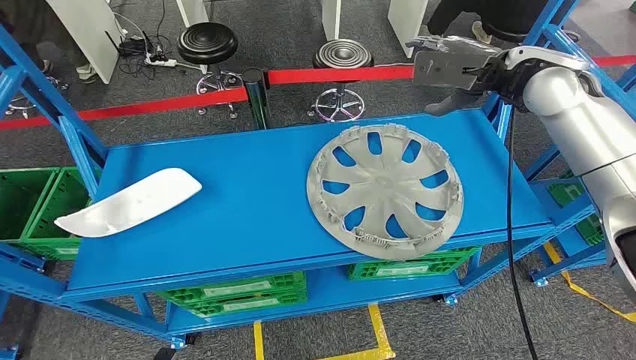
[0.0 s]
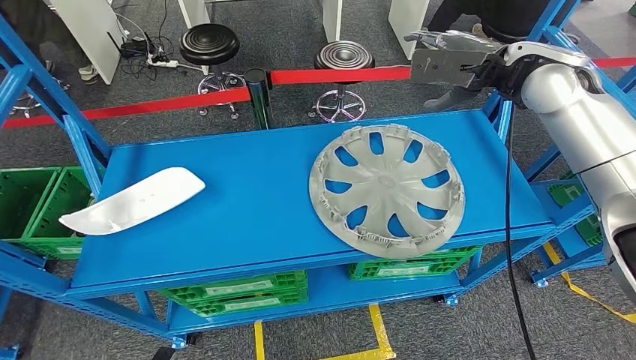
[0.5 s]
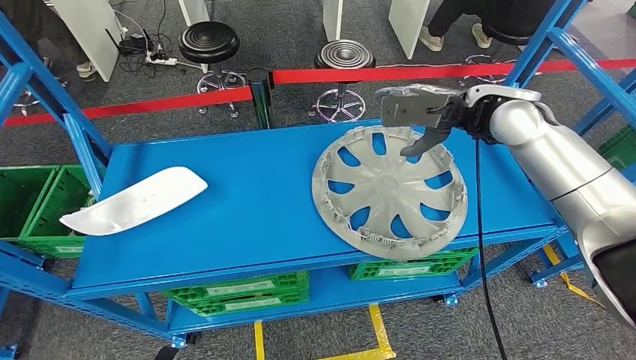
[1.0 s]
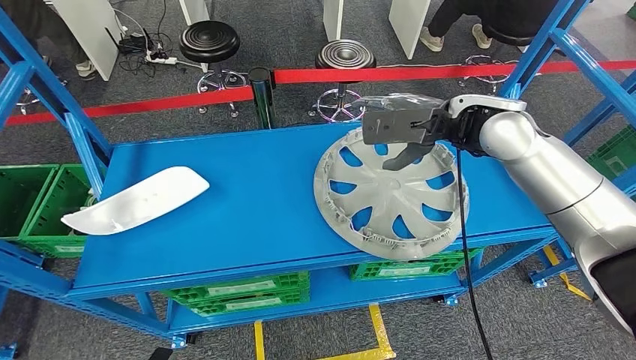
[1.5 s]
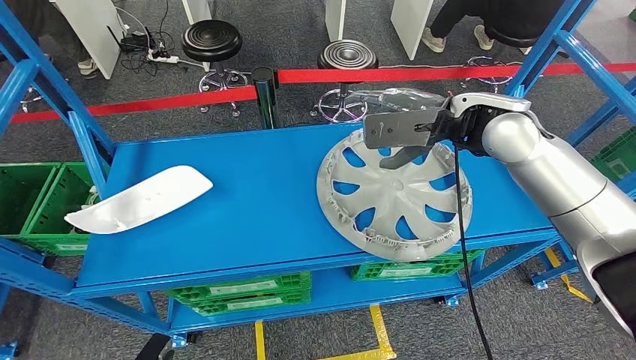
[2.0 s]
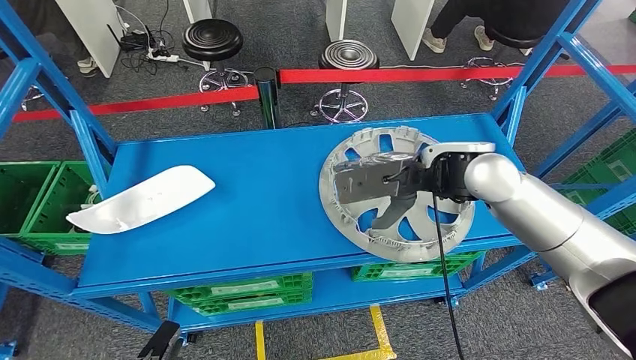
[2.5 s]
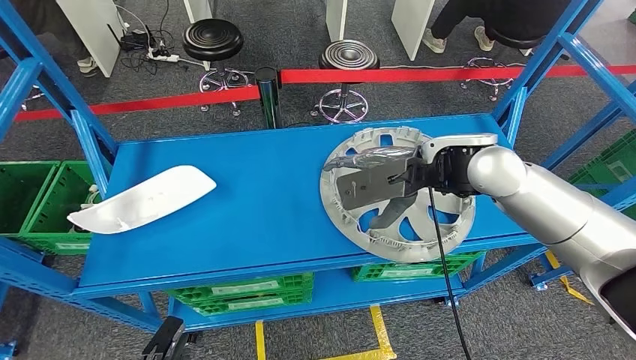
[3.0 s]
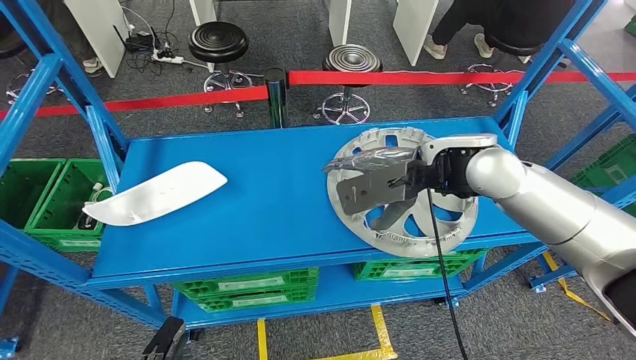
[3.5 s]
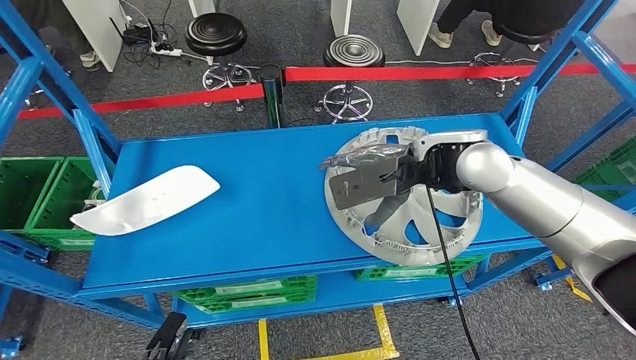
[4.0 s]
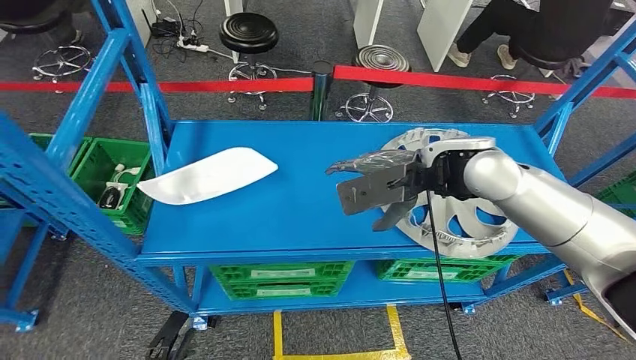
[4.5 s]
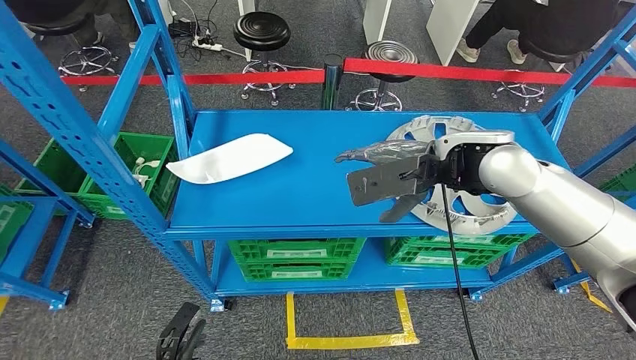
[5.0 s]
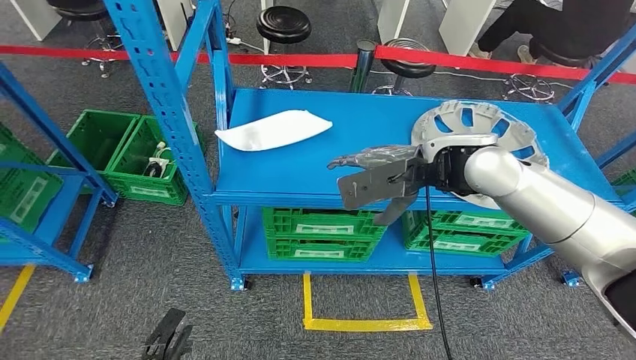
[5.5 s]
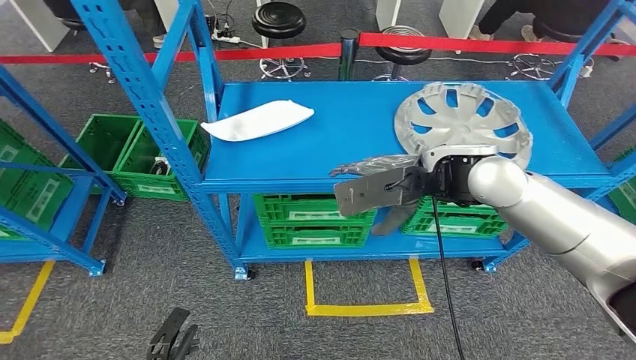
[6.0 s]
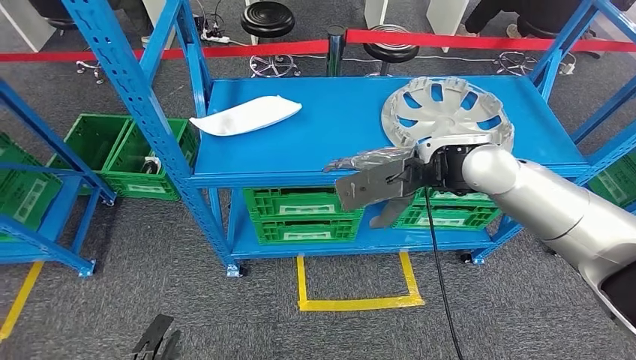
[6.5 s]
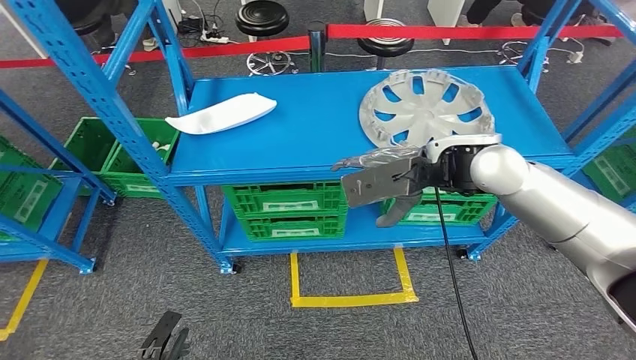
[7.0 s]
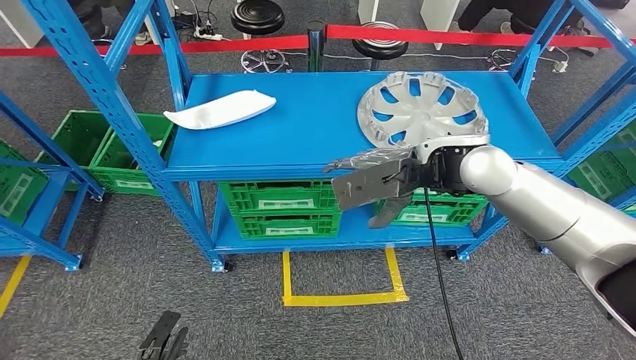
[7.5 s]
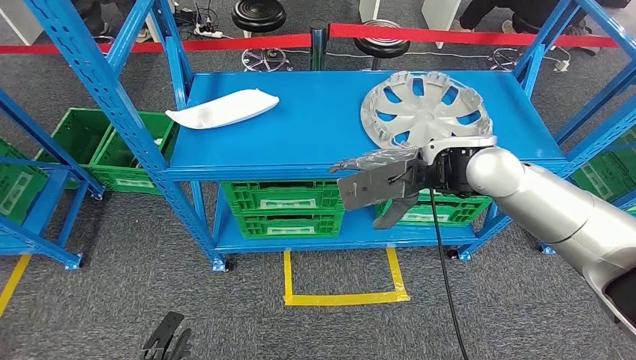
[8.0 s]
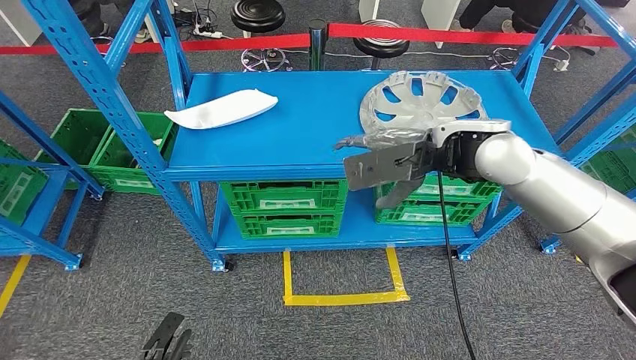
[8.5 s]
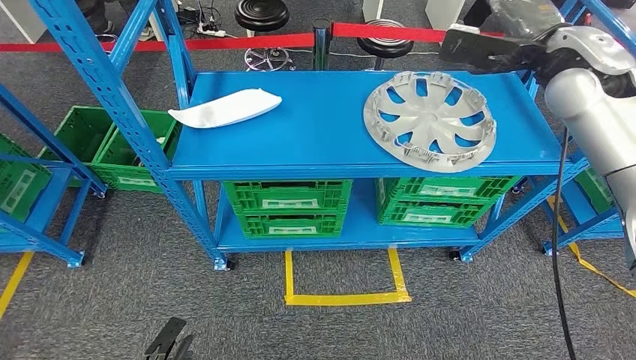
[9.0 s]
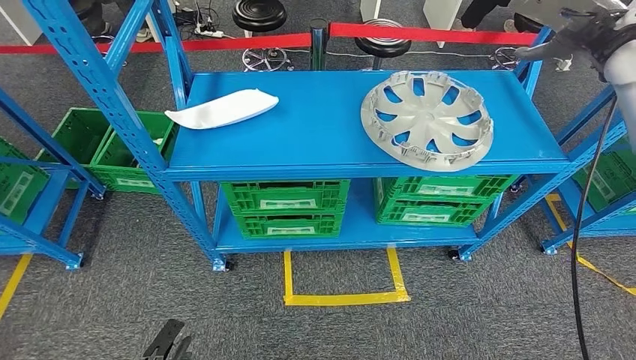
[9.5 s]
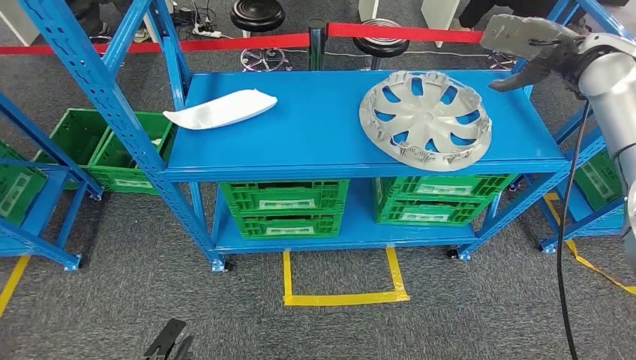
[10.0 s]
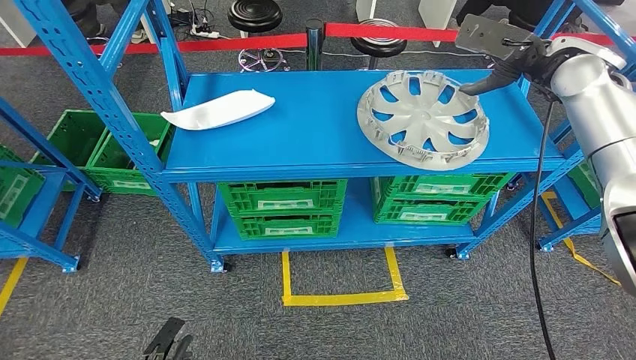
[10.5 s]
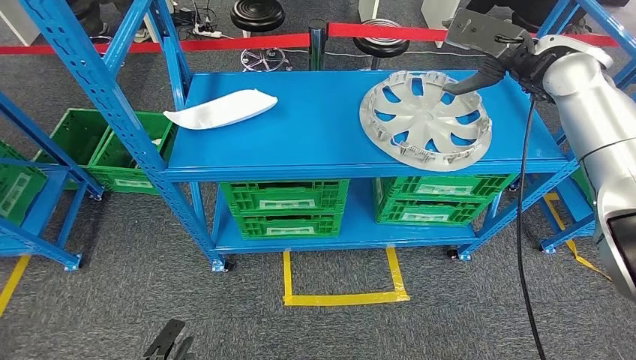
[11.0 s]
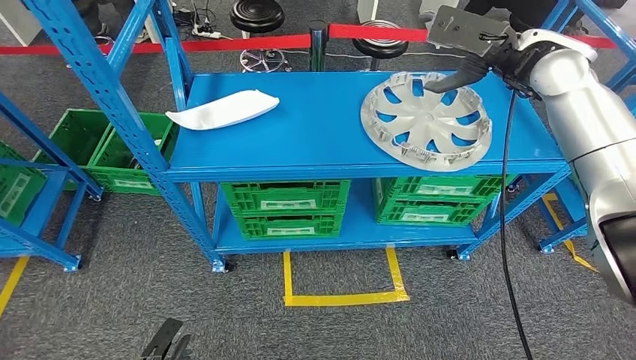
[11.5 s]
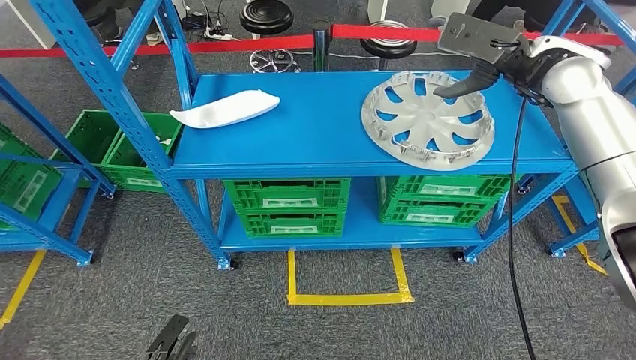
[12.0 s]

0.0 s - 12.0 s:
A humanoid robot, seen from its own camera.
8.0 s - 10.0 s: The right hand goes about 20 cm to the right.

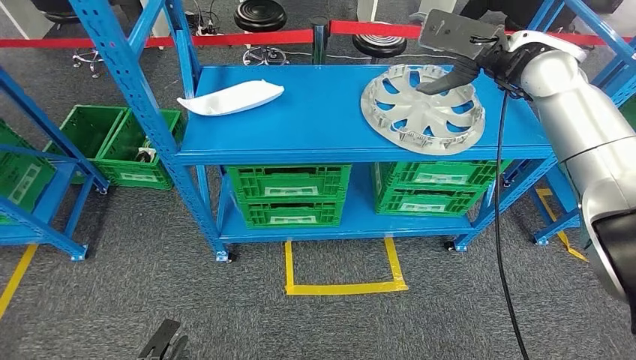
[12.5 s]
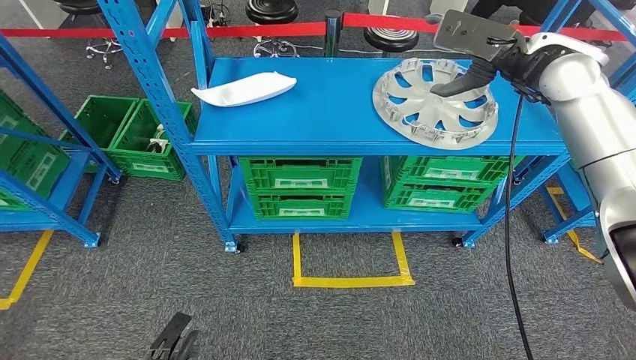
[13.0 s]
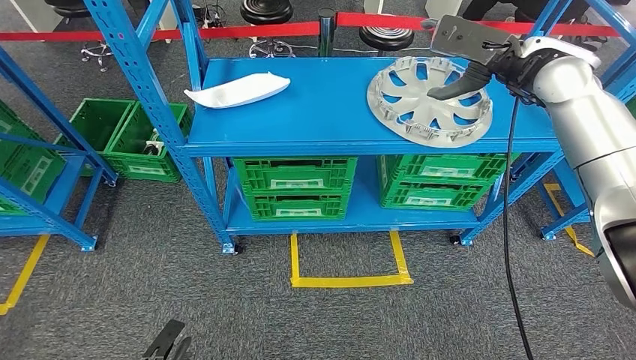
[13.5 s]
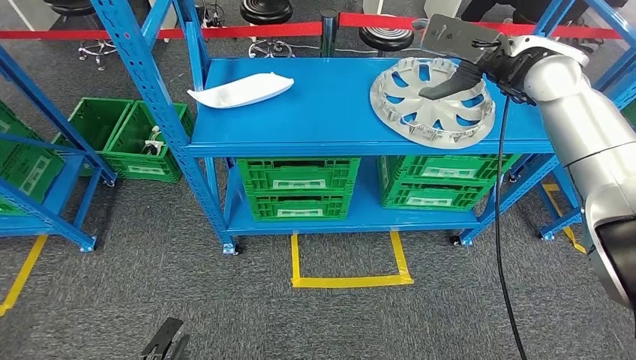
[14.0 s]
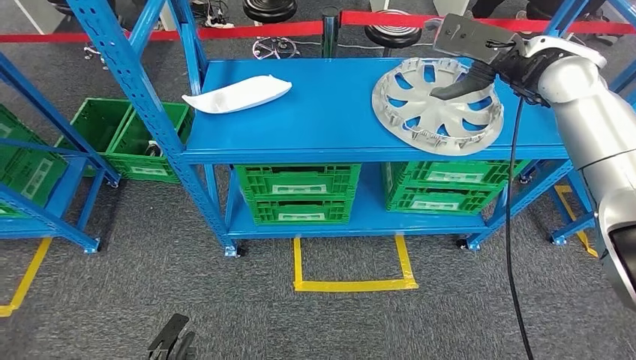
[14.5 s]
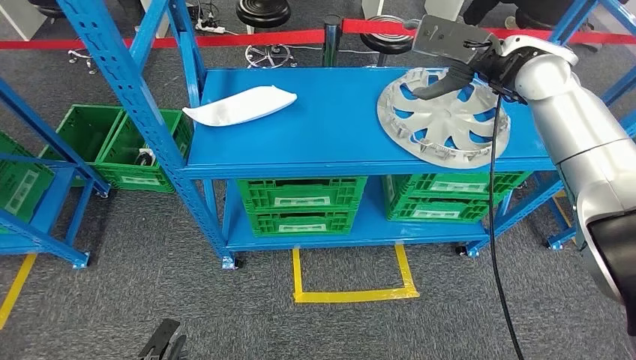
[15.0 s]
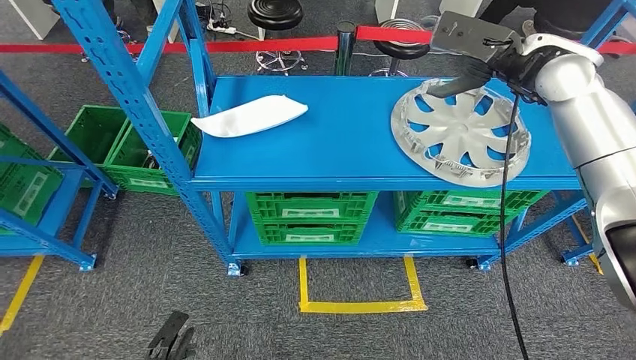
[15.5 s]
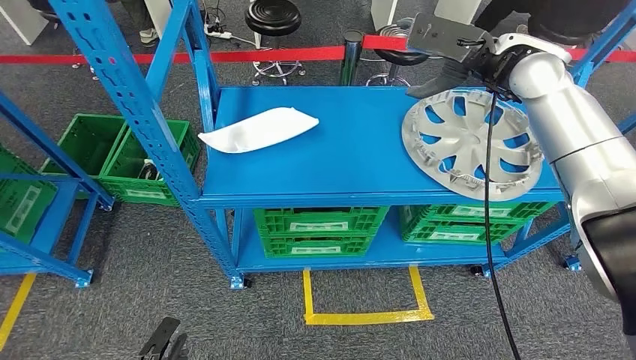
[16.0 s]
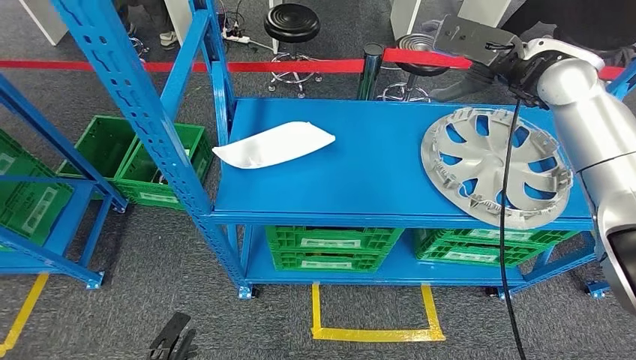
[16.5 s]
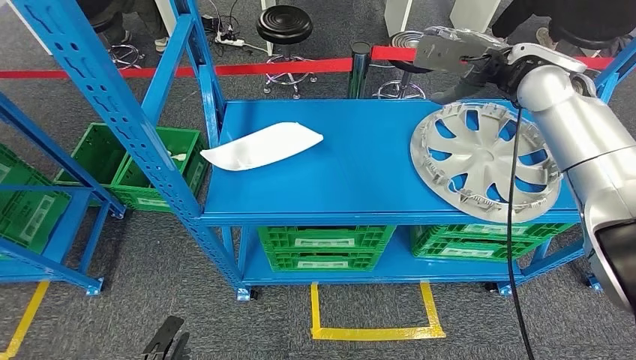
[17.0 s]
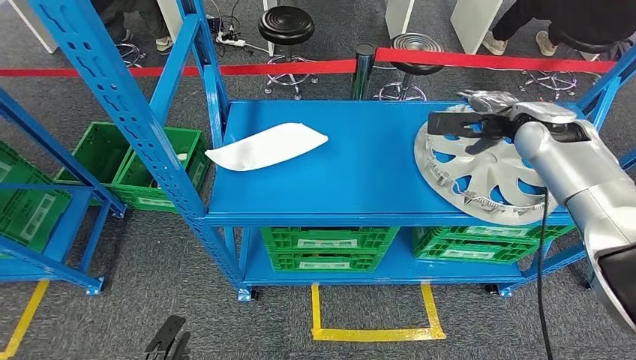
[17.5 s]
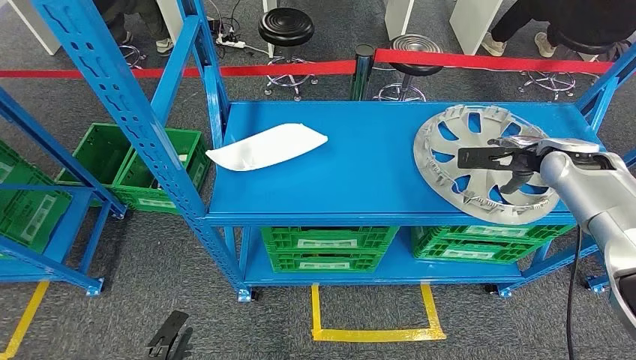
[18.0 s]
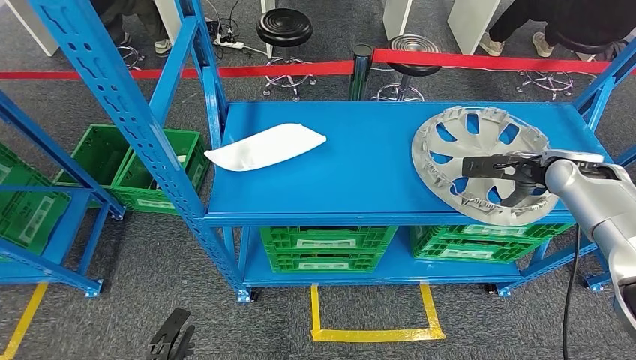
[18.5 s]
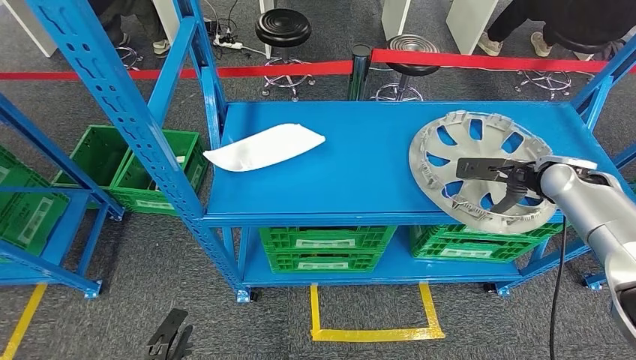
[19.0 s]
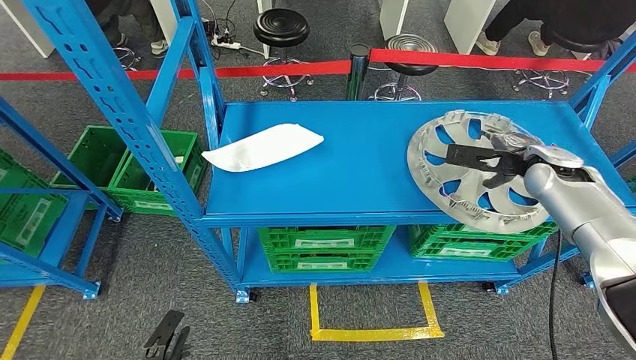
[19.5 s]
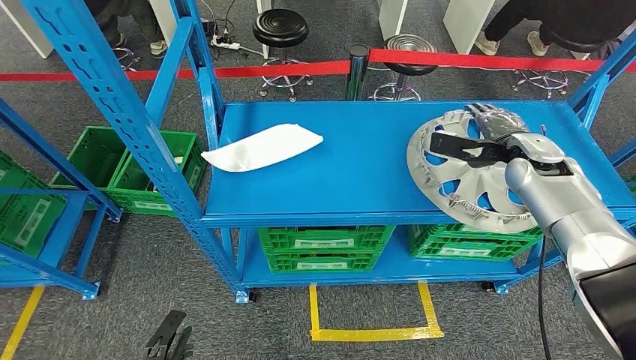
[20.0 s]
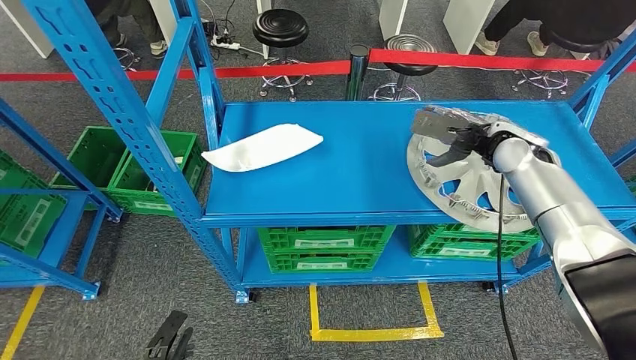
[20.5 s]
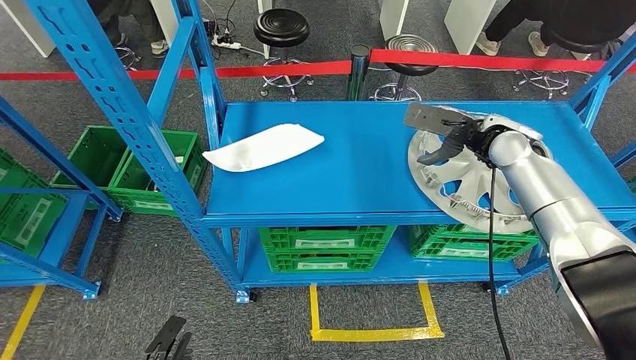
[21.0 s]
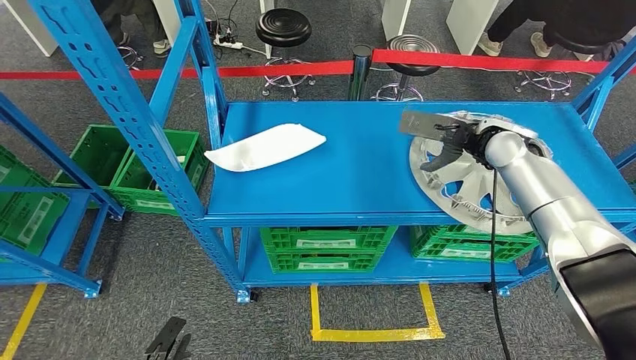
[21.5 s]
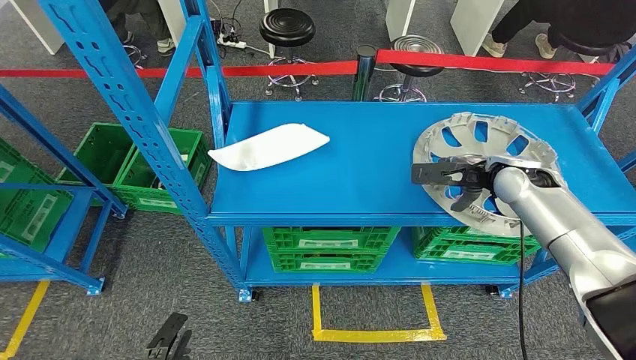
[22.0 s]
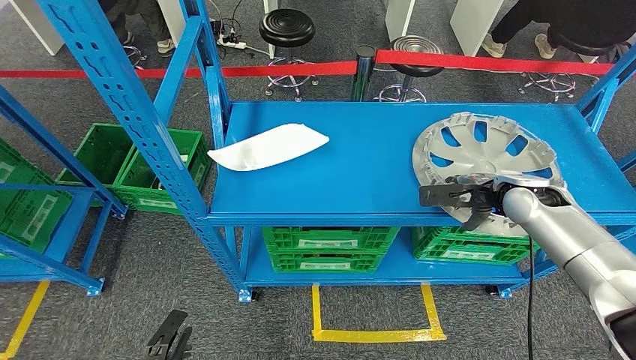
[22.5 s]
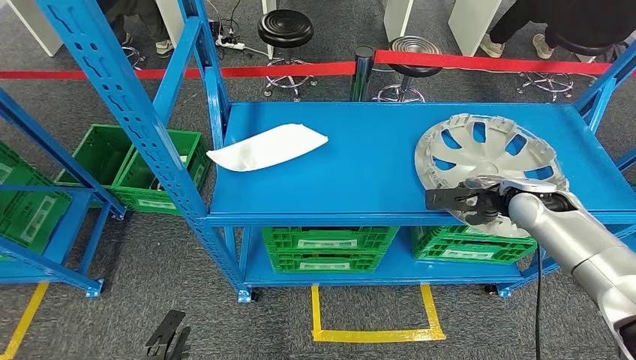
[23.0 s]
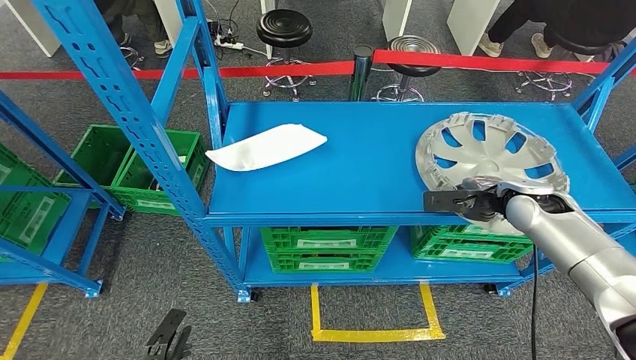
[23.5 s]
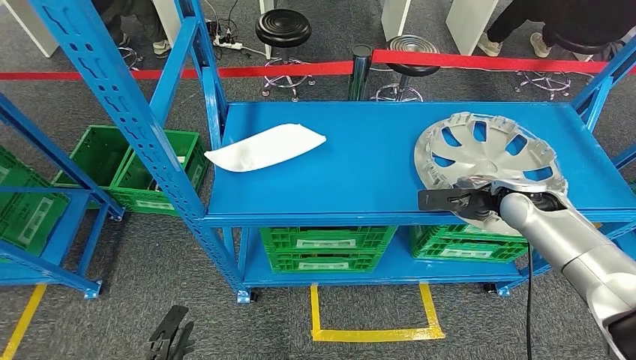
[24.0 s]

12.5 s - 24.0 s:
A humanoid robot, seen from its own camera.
18.5 s - 20.0 s: The right hand moves to the left, about 5 cm.
22.0 s - 24.0 s: The hands stay close to where they were, moving slightly.
